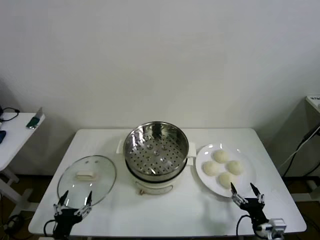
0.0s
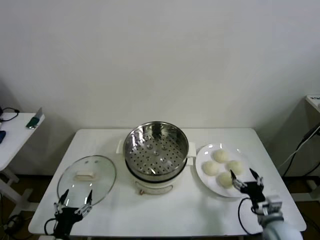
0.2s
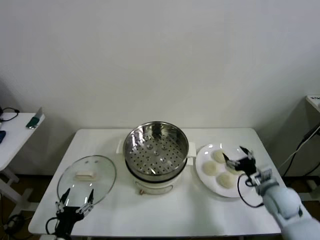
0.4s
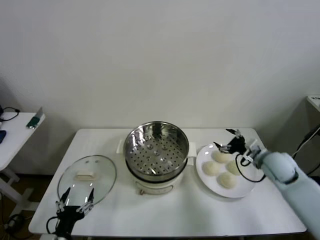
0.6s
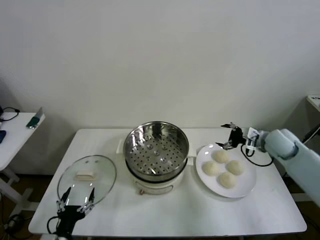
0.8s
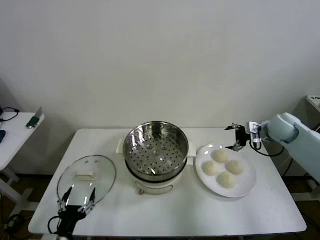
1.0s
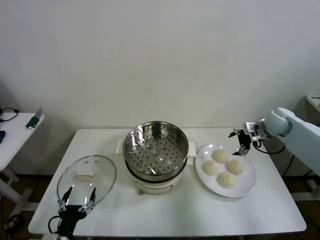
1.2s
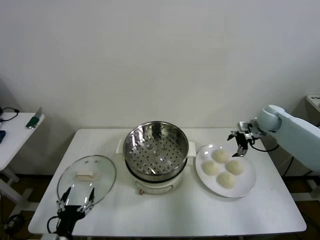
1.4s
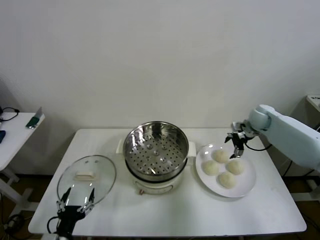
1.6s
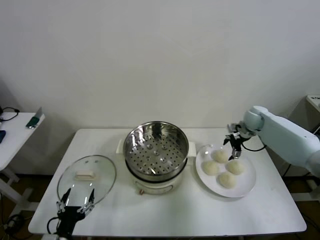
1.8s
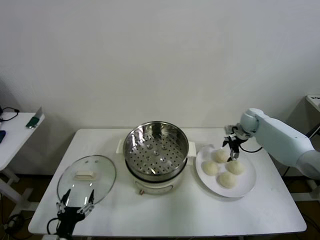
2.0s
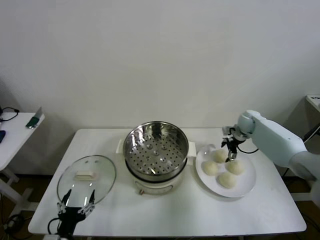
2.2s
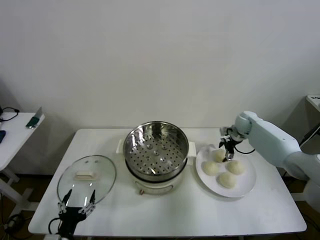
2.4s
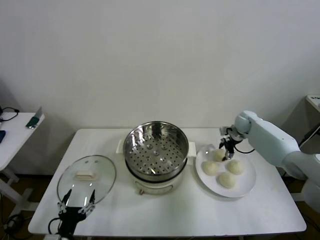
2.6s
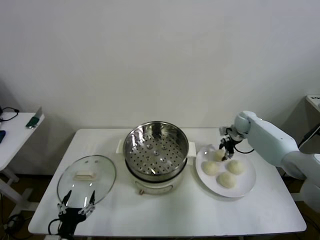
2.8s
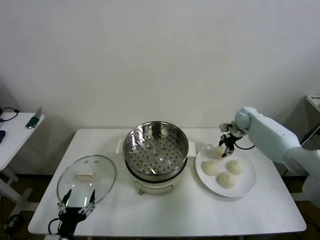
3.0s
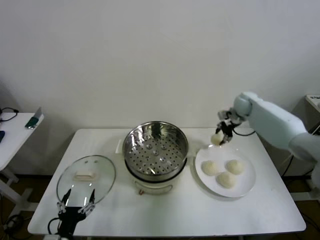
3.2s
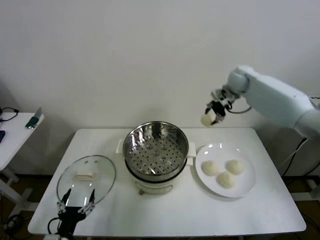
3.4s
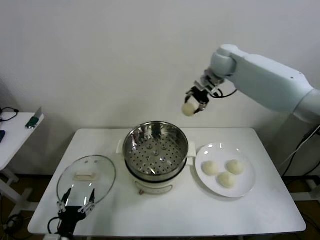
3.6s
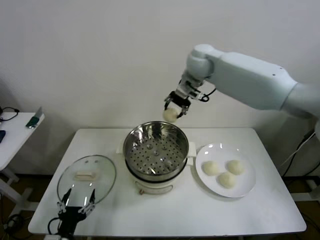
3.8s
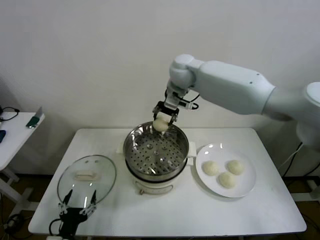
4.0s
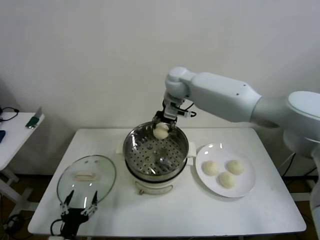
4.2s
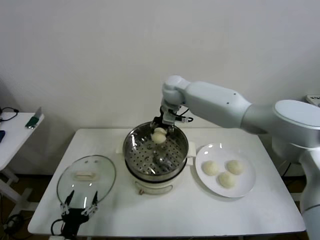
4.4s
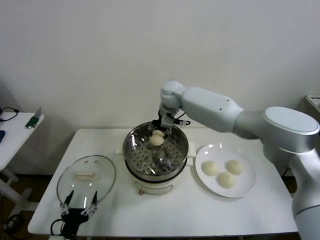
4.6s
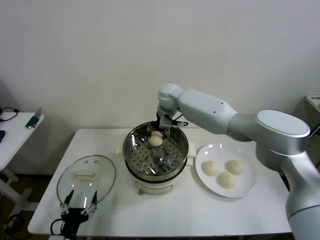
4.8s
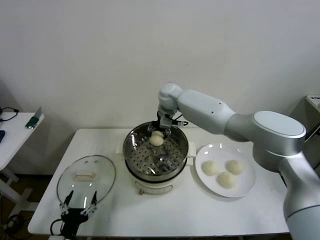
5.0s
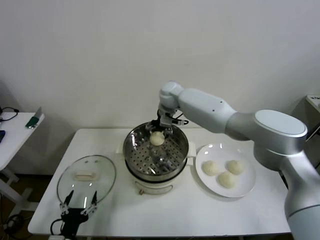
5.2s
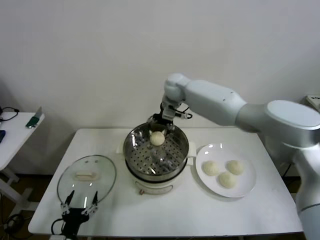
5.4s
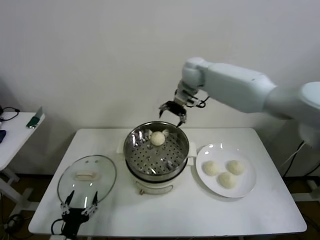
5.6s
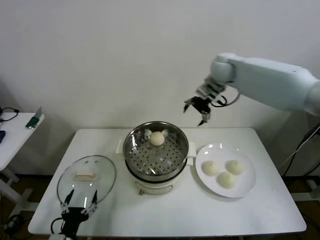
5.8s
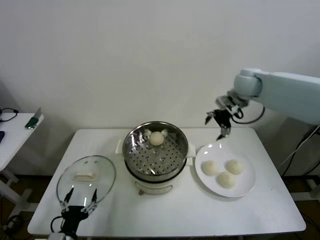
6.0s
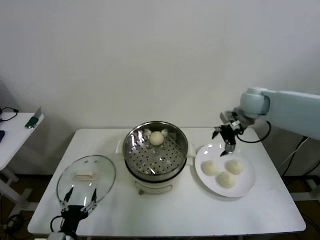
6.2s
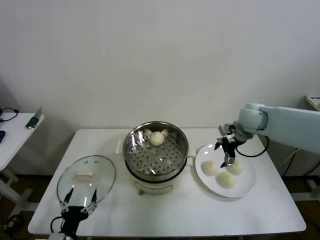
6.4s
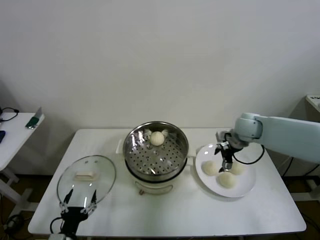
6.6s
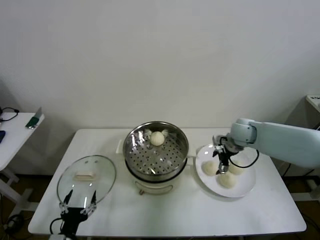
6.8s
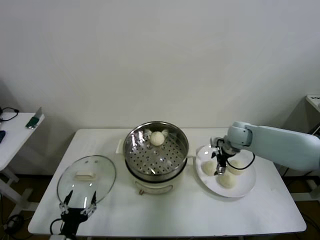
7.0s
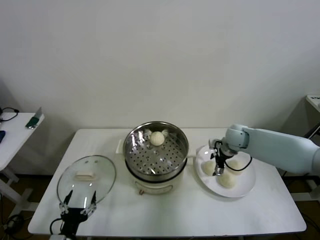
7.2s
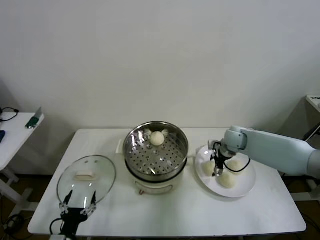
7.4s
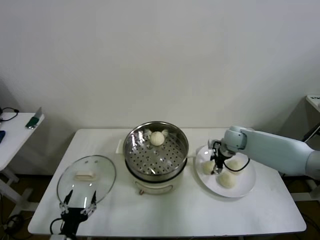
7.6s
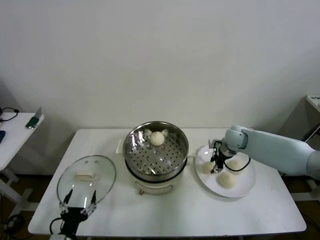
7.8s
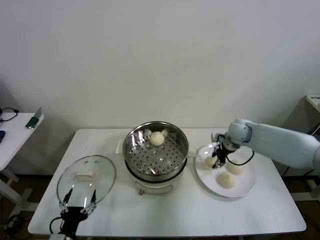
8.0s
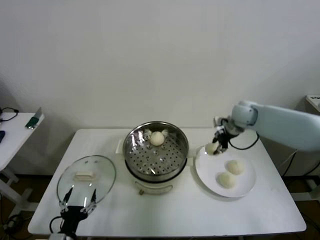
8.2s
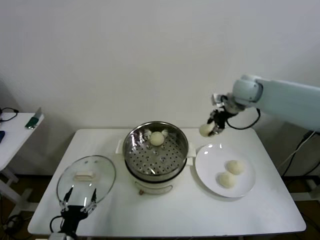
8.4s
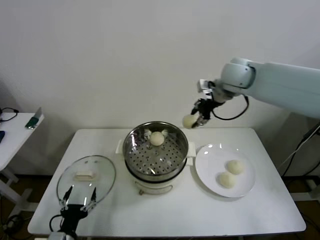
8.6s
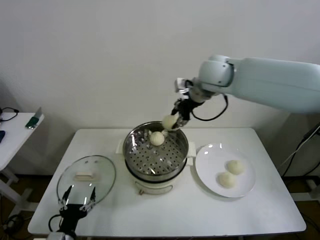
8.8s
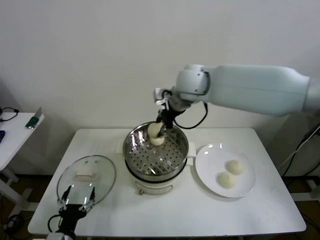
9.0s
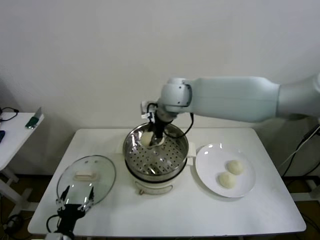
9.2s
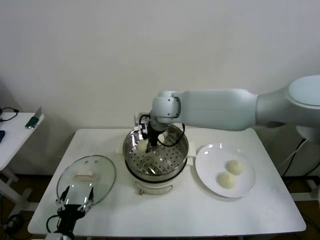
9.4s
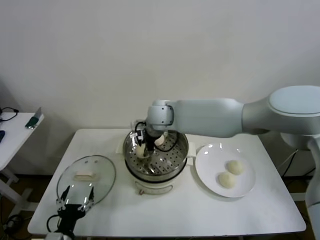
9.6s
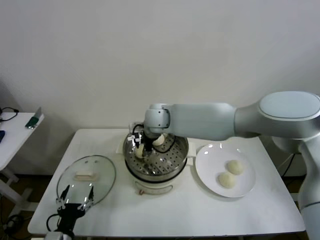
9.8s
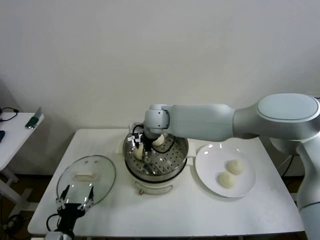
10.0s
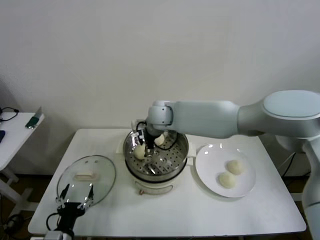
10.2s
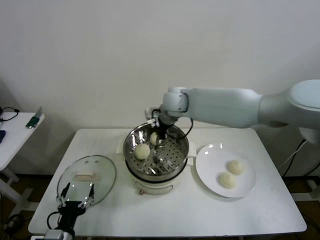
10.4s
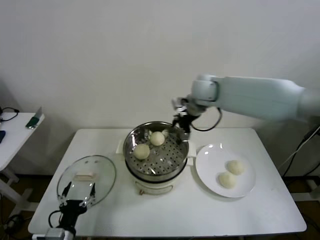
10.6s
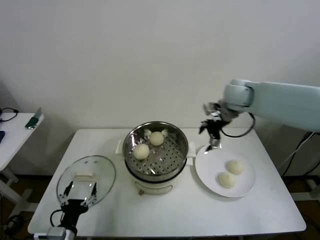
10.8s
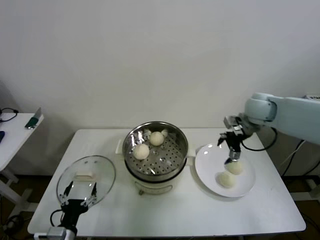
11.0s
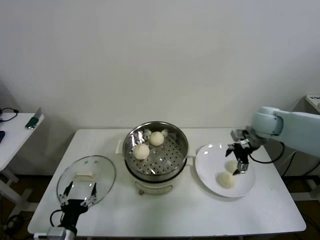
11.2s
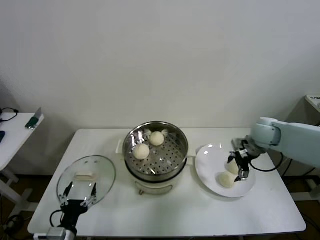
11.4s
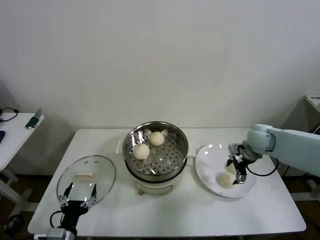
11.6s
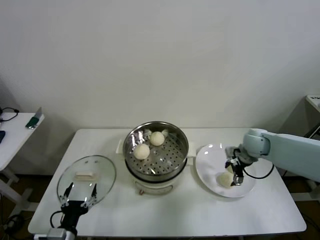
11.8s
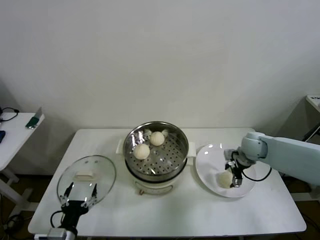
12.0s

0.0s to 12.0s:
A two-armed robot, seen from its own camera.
Step, 0.0s to 2.8s: Grasp the baozi in the plate with right gripper.
Step, 3.0s to 5.2s: Place the baozi on the steamer with right gripper.
Step, 5.4s to 7.6s: Grasp the baozi in the plate with right gripper.
Step, 7.8s to 10.2s: Place the baozi on the steamer with right gripper.
1.6s to 3.0s: The right gripper moves approximately 5 cm, and closes its fingers.
3.0s to 4.4s: The right gripper heads to the left, covering some 30 cm.
4.4s to 6.0s: The right gripper shifts approximately 25 cm to the right, and opens its fingers.
6.0s to 7.6s: The right gripper is displaced downward by about 20 cm, and closes up.
7.6s to 9.0s: The right gripper heads upward and to the left, covering approximately 35 cm.
9.0s to 10.4s: The right gripper goes some 5 cm downward, and opens up.
10.4s to 12.0s: The right gripper goes some 30 cm to the right and downward.

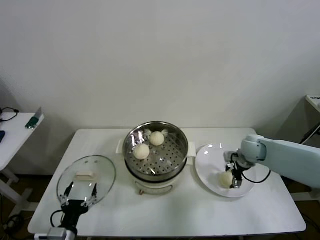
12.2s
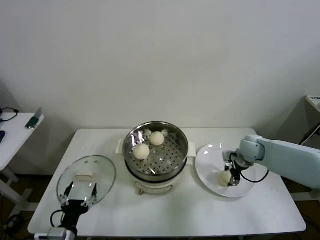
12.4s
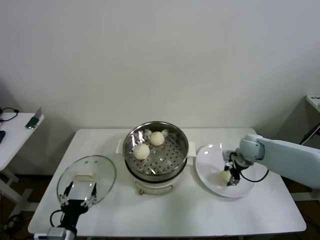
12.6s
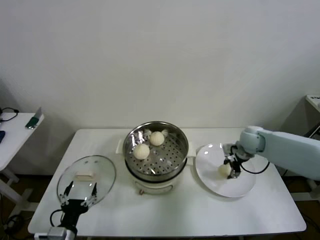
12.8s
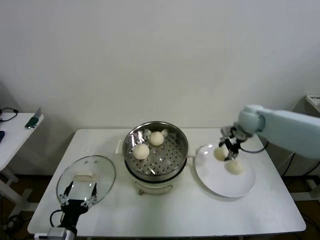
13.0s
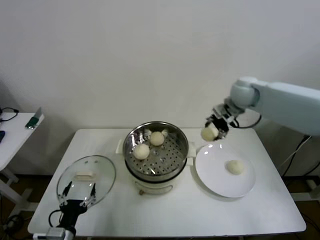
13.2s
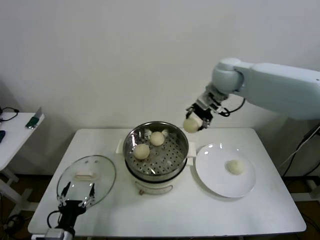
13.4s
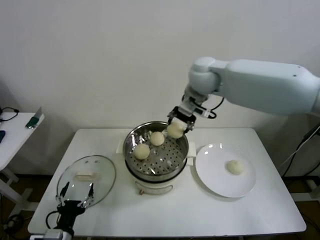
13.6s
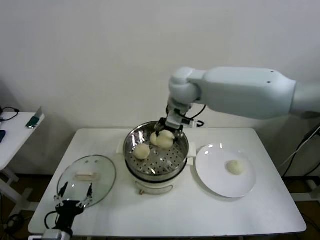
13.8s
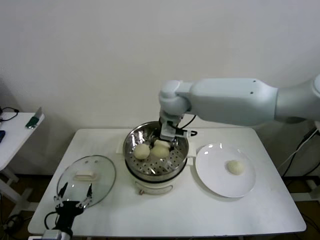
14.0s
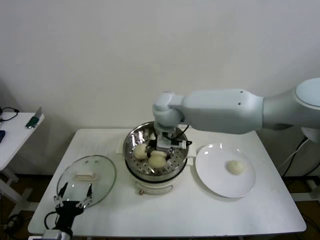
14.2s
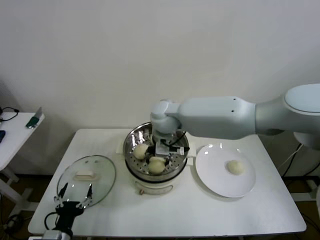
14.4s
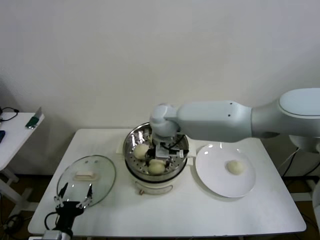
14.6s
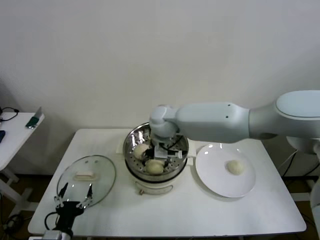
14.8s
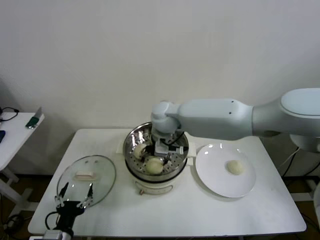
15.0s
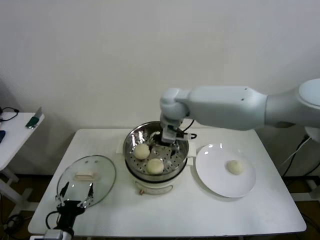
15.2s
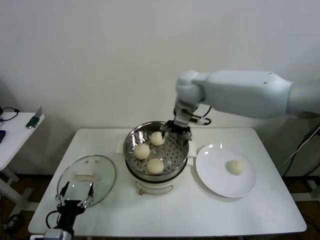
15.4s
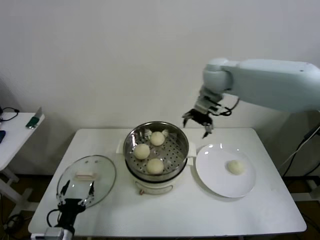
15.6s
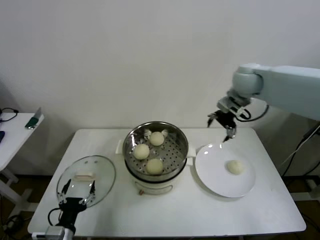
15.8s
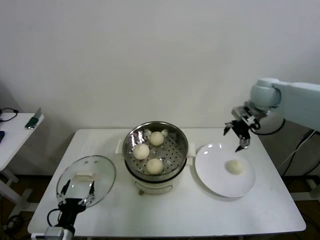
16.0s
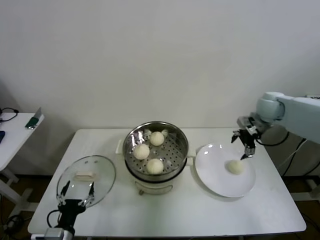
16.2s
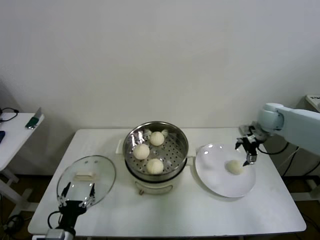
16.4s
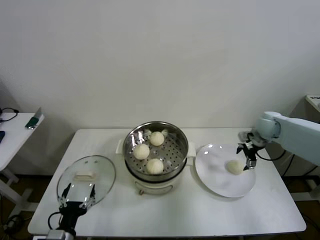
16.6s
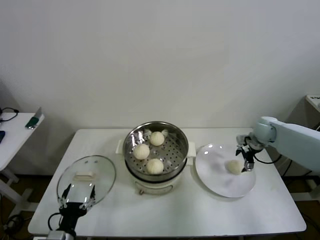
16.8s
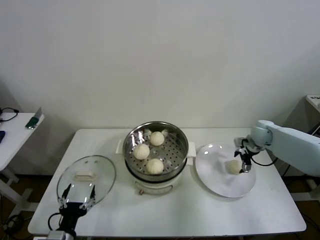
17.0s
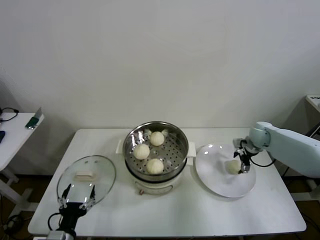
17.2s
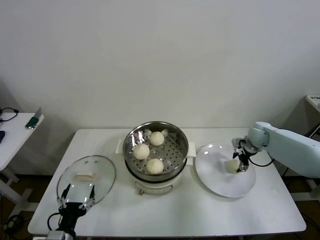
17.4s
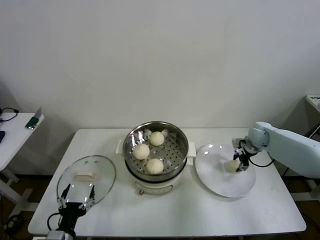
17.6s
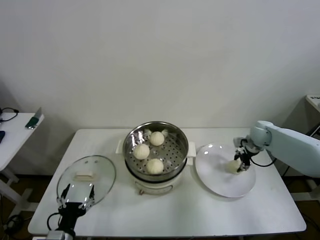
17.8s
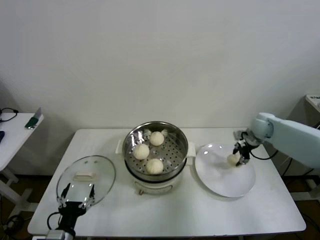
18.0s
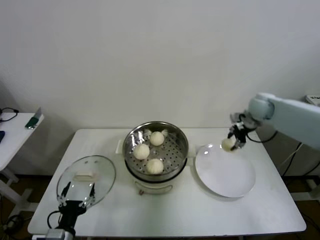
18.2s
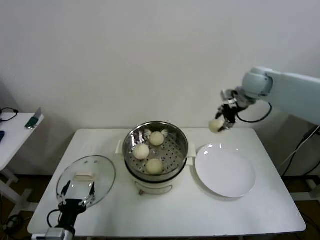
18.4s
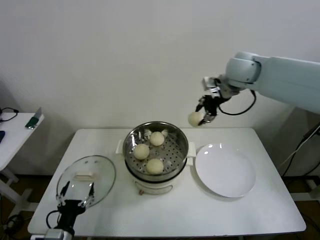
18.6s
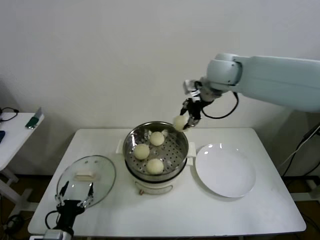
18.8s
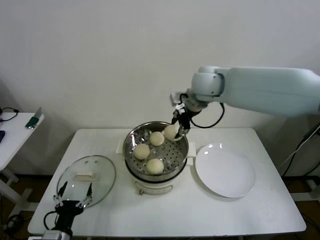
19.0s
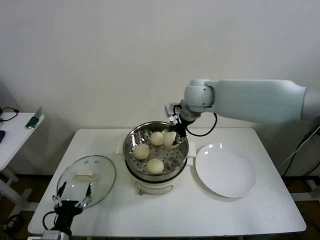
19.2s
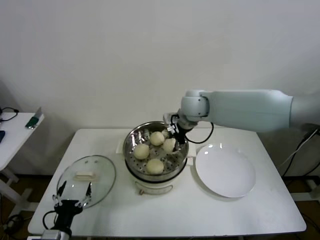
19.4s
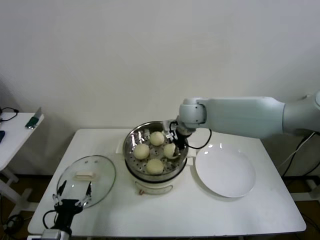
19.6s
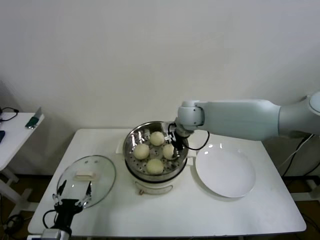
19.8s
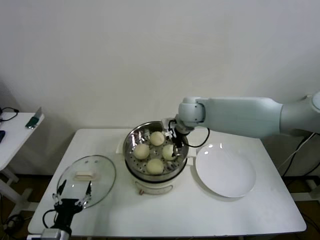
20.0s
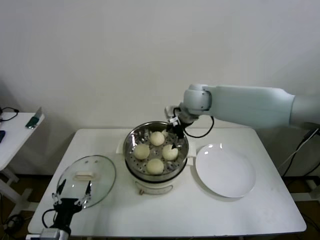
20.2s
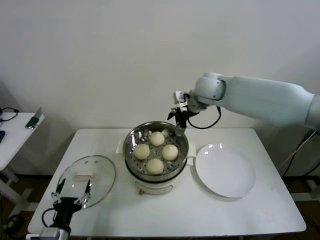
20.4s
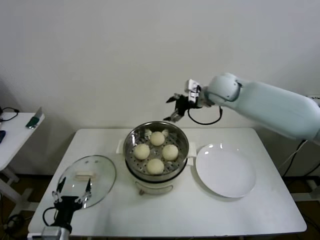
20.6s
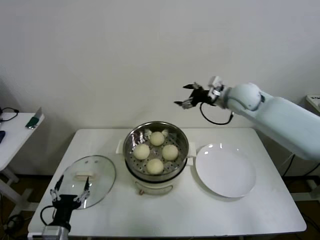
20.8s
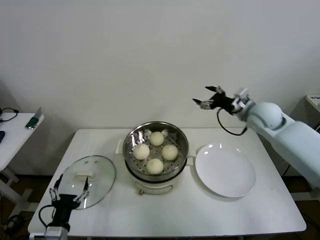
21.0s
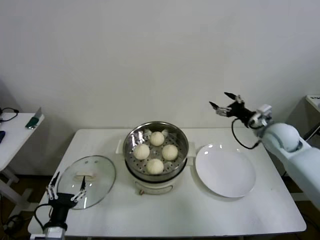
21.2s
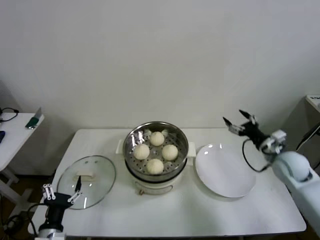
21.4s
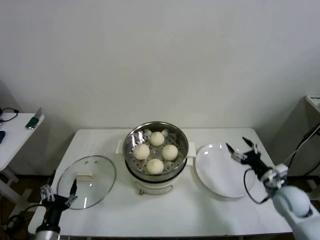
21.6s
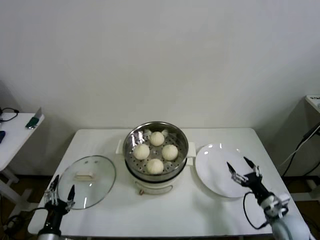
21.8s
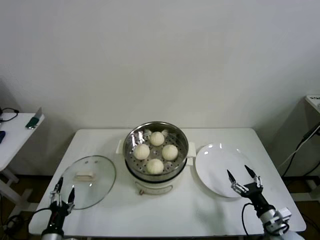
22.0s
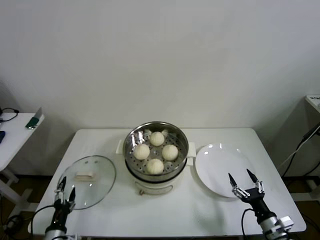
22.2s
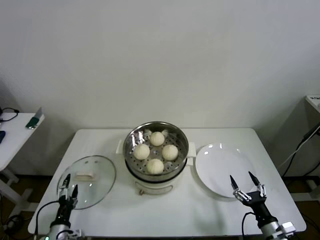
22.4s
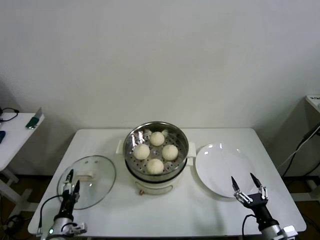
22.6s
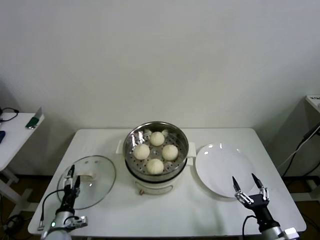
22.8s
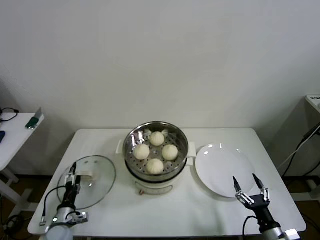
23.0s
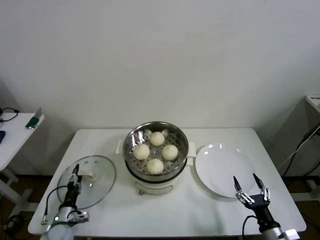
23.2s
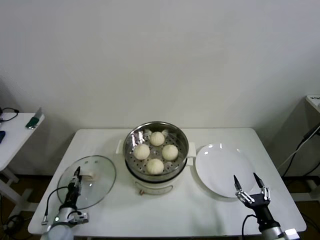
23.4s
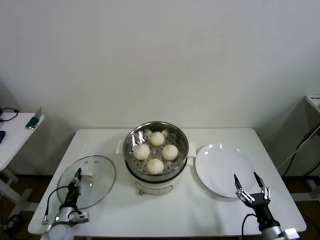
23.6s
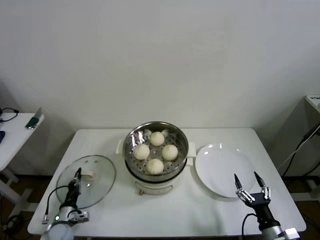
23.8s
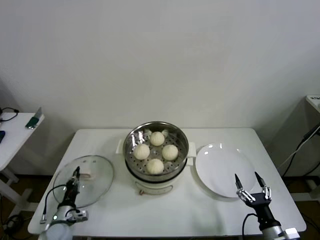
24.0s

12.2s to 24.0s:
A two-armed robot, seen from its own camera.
Step, 12.8s to 15.0s: Place the baozi on the steamer with right gripper.
Step, 15.4s to 17.6s: Grasp the baozi in the plate with right gripper.
Step, 18.0s to 20.0s: Place the baozi on the steamer with right gripper.
Step, 20.2s to 23.6s: Grasp the pot lid with left gripper.
12.2s to 13.6s: The right gripper moves upward and to the left, approximately 35 cm, and closes its fingers.
13.6s to 15.2s: The right gripper shifts approximately 10 cm downward and to the left, and opens its fingers.
15.2s to 16.6s: The right gripper heads to the right, covering about 35 cm.
16.6s to 18.2s: The right gripper heads upward, covering approximately 10 cm, and closes.
18.2s to 19.6s: The right gripper heads to the left, covering some 25 cm.
19.6s to 21.0s: The right gripper shifts some 25 cm to the right, and opens up.
21.0s to 22.6s: The left gripper moves downward and forward, about 10 cm. Meanwhile the right gripper travels backward and downward by roughly 40 cm.
22.6s to 24.0s: The left gripper is displaced forward by roughly 5 cm, and closes up.
